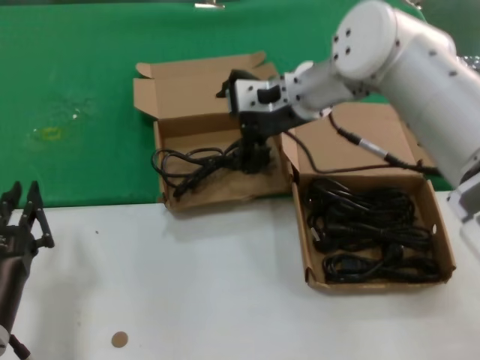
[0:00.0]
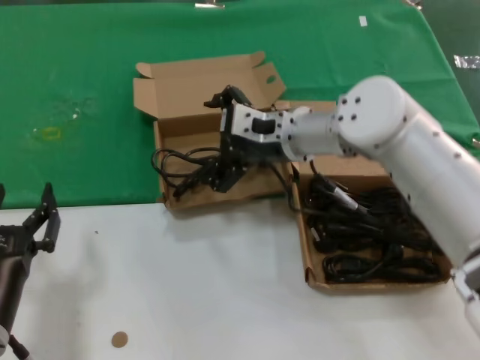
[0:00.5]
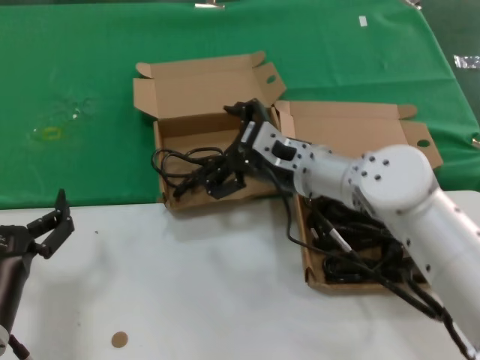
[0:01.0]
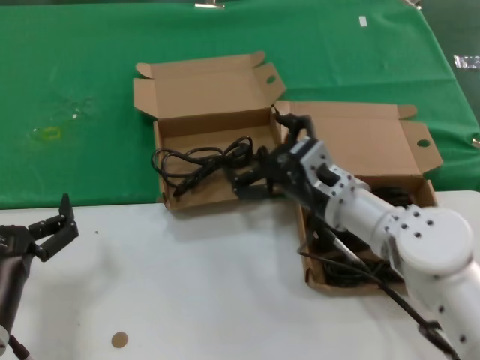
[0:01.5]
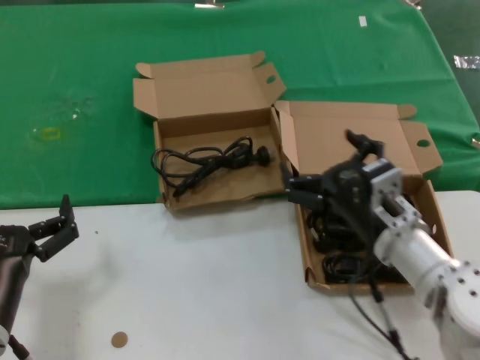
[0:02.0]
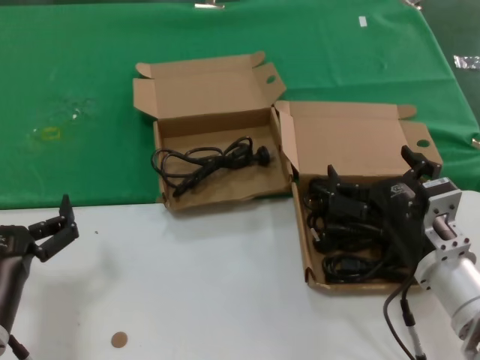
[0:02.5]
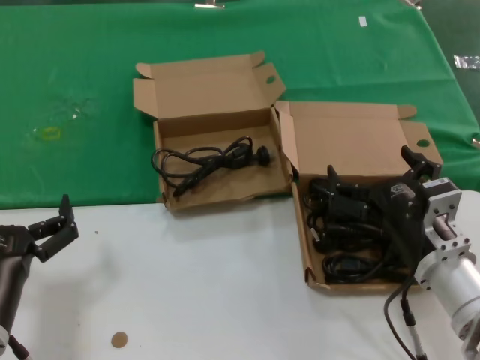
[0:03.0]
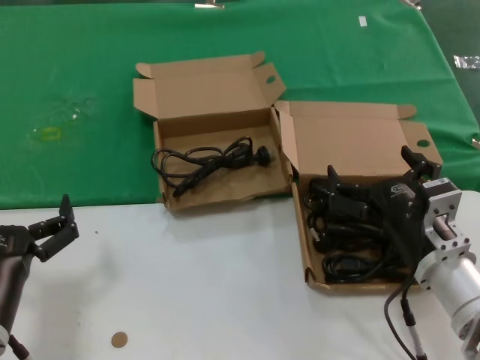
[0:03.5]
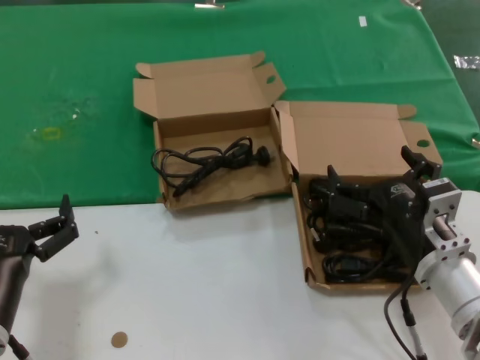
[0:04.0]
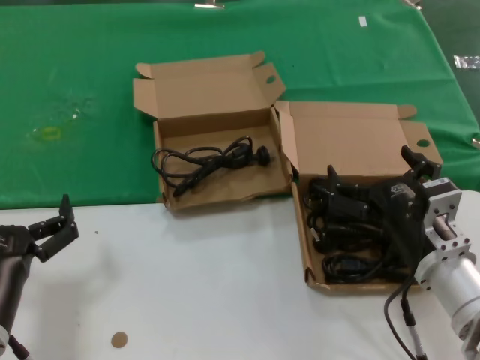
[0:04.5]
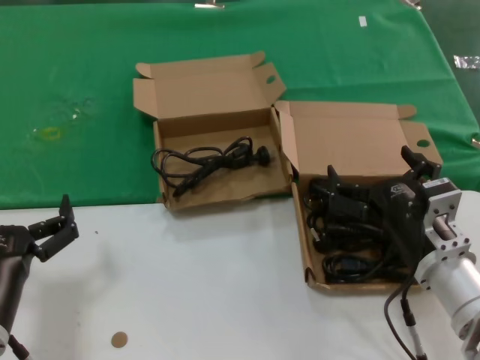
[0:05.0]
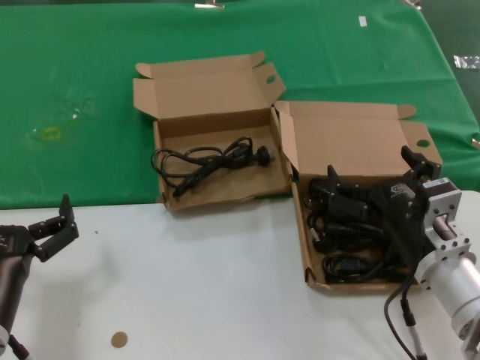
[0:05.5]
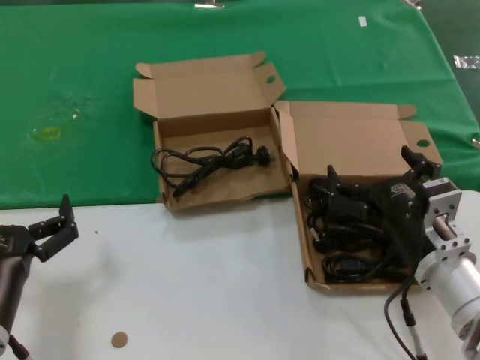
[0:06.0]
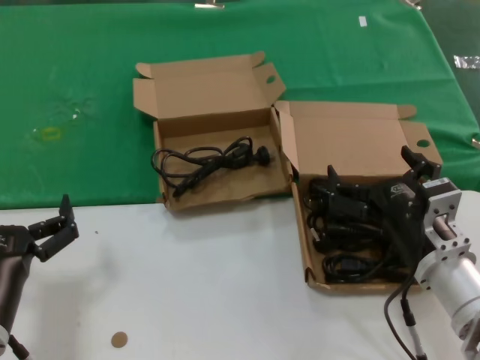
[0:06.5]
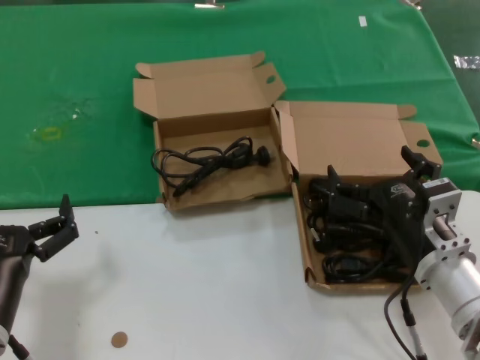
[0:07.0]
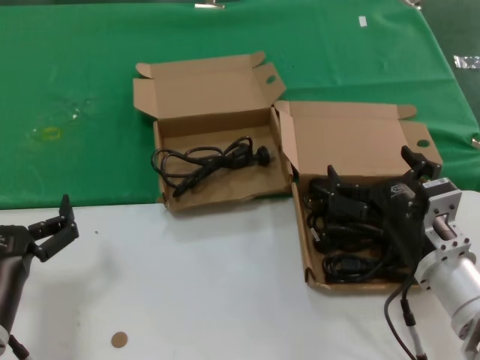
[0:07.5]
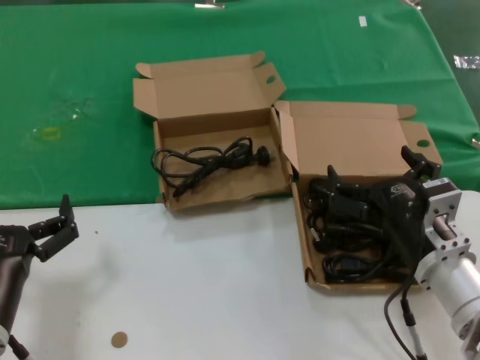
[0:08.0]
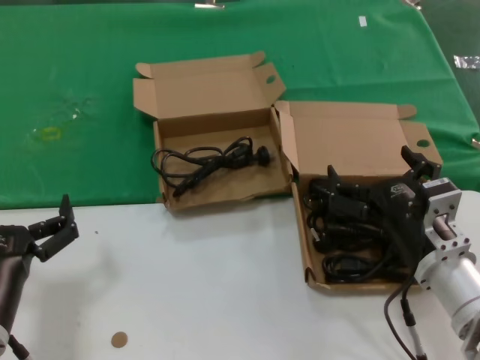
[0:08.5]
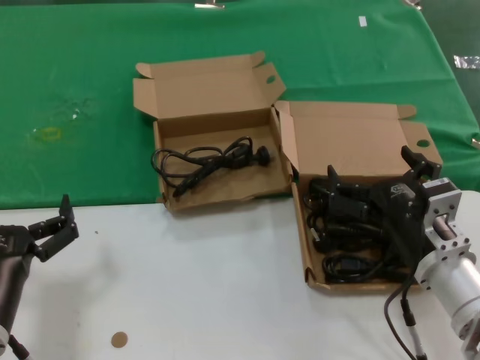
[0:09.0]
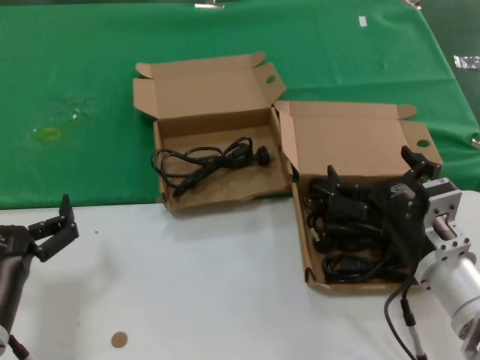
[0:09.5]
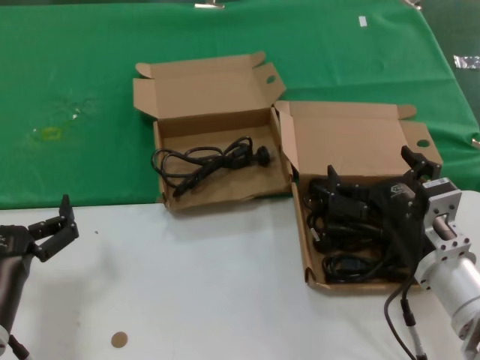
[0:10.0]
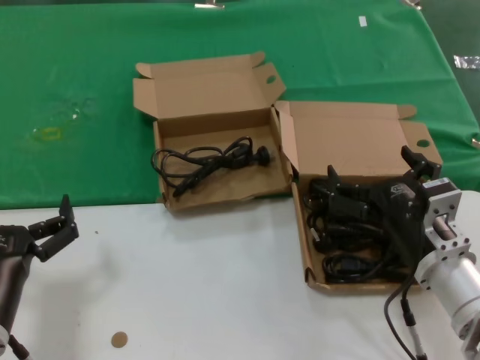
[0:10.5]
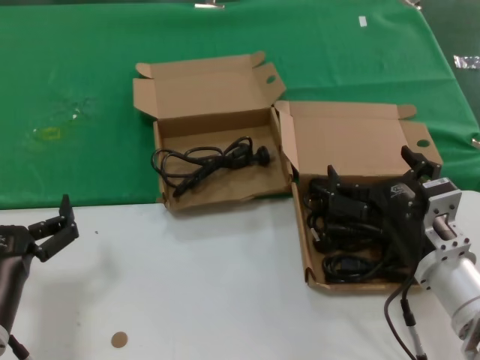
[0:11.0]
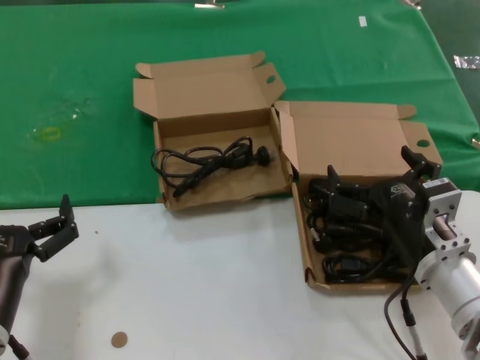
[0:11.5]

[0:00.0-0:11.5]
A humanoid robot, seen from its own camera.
Task of the whole recording: take the parts from the box containing them and put them into an empty box.
0:00.0 to 0:02.0: The right hand moves downward, backward and to the right, roughly 25 cm.
0:02.0 to 0:04.0: The right hand is displaced backward by some 5 cm.
0:04.0 to 0:11.5: Both hands stay put.
